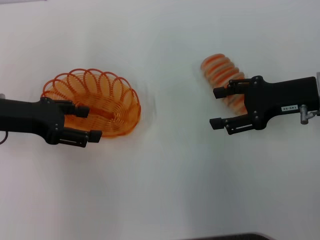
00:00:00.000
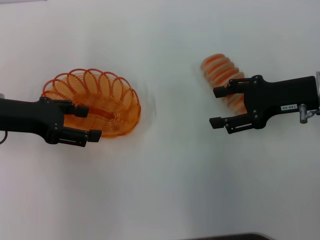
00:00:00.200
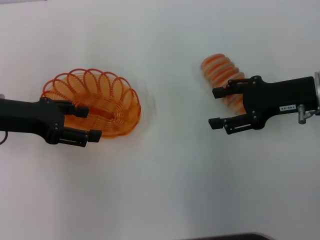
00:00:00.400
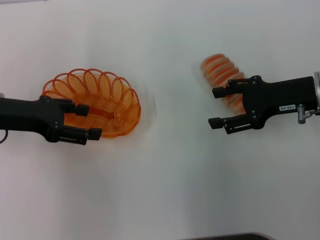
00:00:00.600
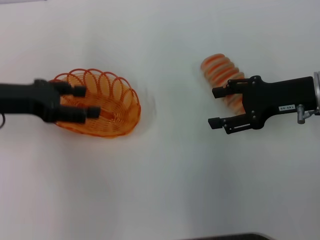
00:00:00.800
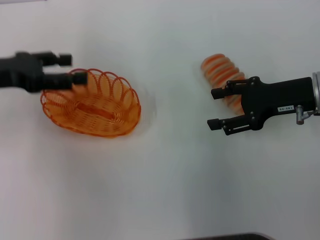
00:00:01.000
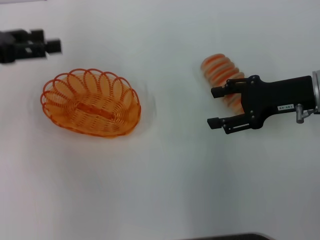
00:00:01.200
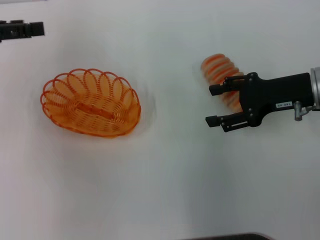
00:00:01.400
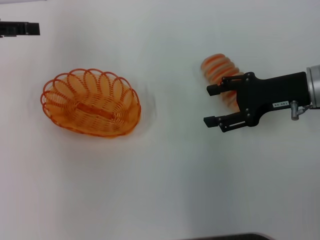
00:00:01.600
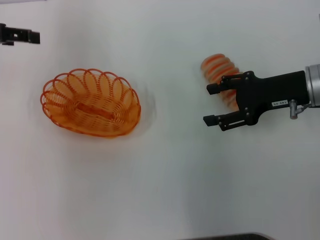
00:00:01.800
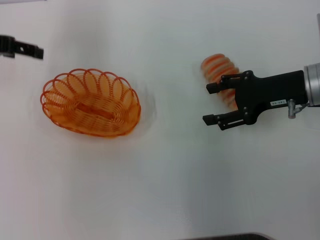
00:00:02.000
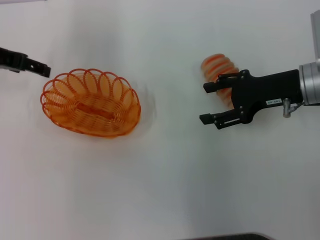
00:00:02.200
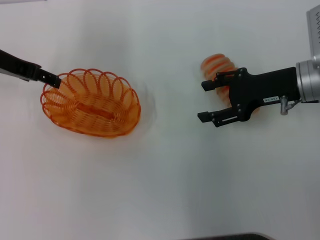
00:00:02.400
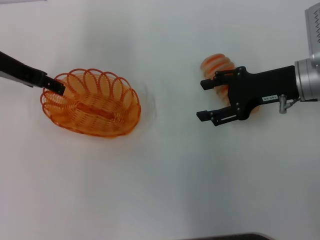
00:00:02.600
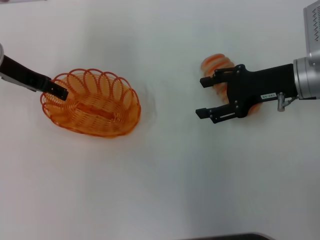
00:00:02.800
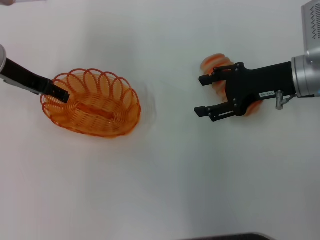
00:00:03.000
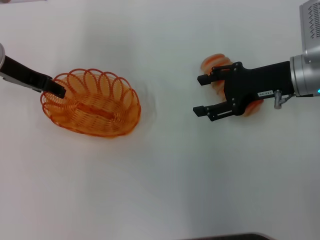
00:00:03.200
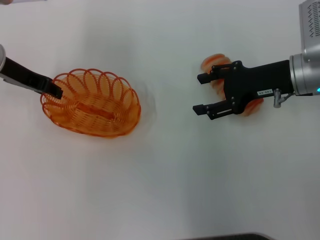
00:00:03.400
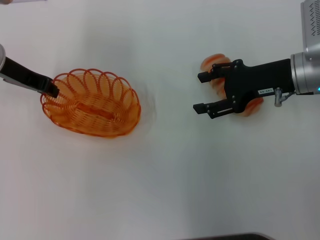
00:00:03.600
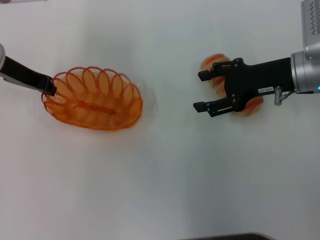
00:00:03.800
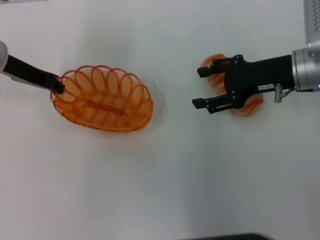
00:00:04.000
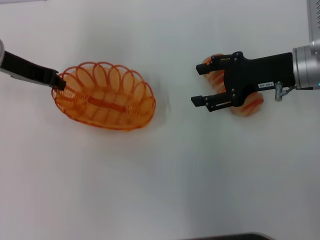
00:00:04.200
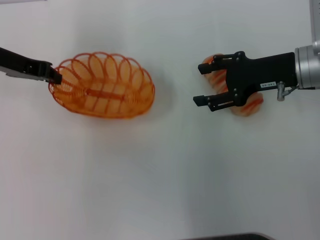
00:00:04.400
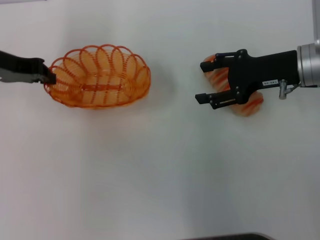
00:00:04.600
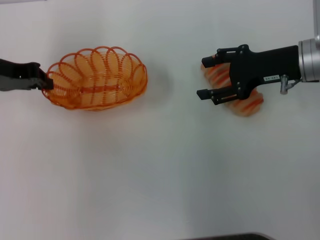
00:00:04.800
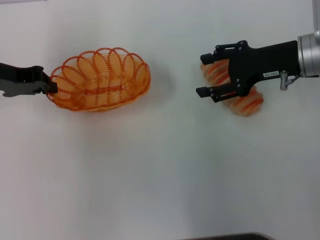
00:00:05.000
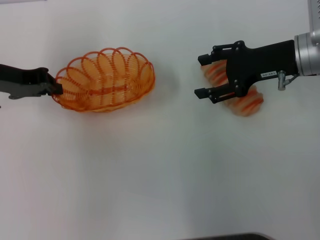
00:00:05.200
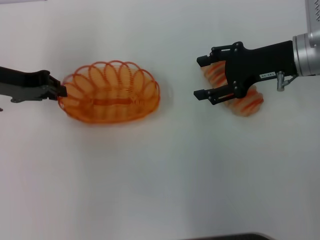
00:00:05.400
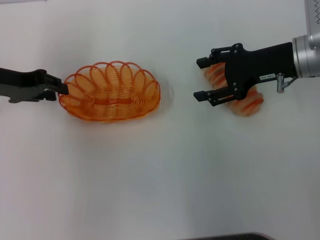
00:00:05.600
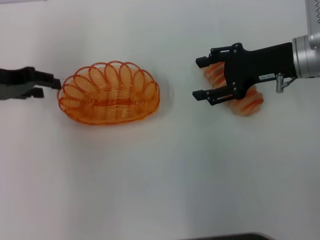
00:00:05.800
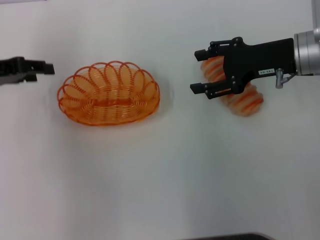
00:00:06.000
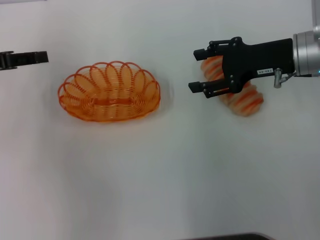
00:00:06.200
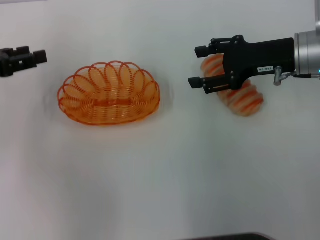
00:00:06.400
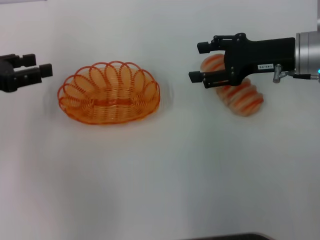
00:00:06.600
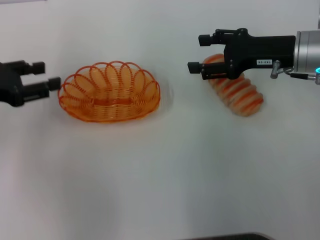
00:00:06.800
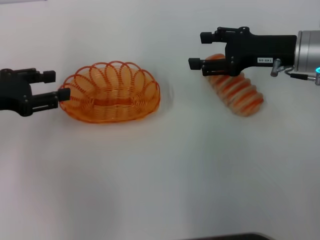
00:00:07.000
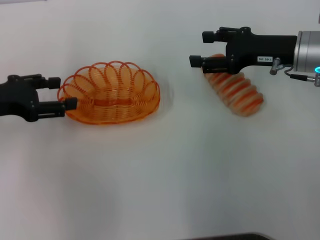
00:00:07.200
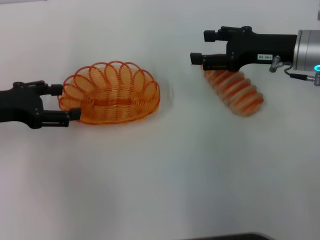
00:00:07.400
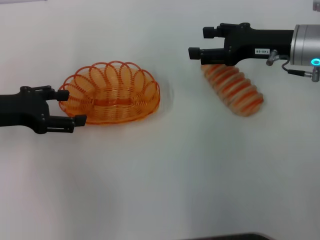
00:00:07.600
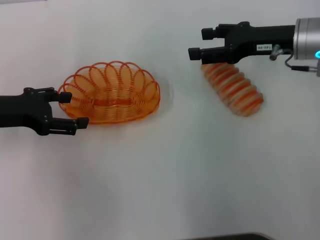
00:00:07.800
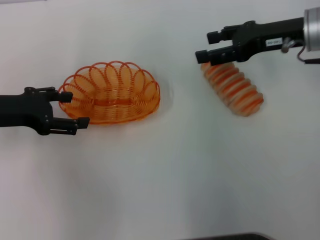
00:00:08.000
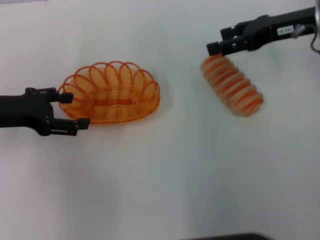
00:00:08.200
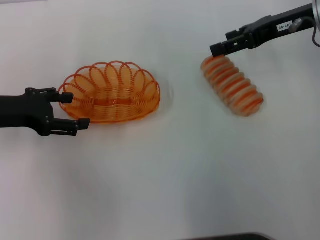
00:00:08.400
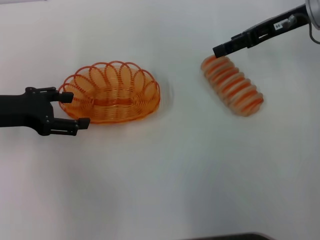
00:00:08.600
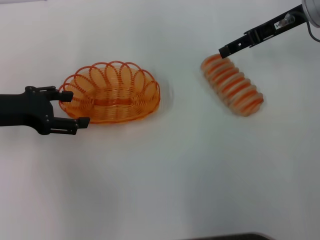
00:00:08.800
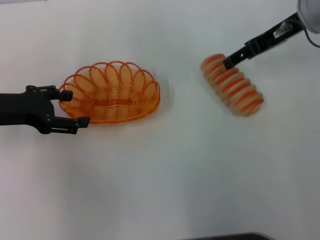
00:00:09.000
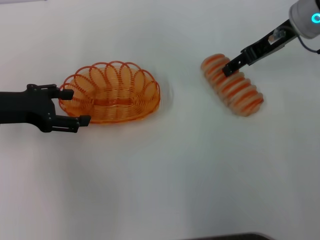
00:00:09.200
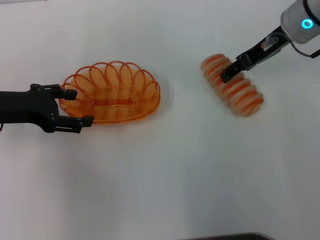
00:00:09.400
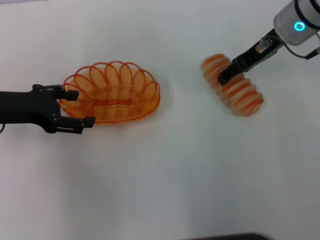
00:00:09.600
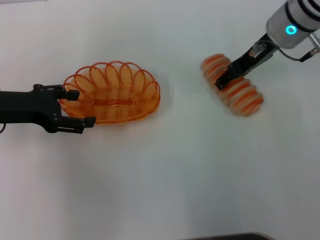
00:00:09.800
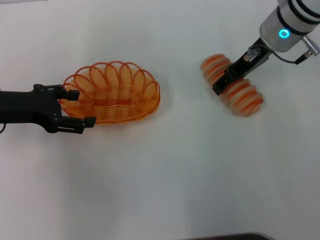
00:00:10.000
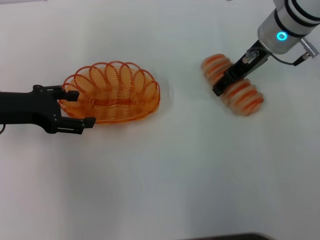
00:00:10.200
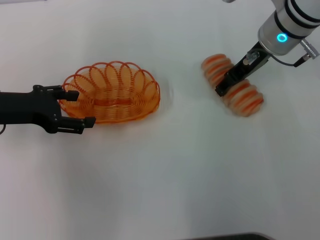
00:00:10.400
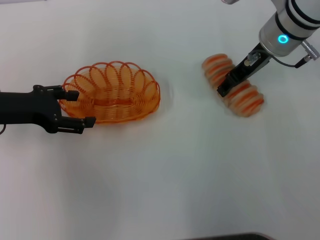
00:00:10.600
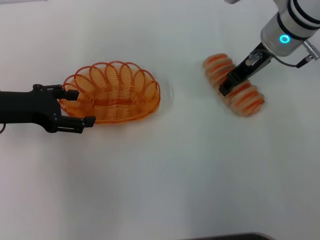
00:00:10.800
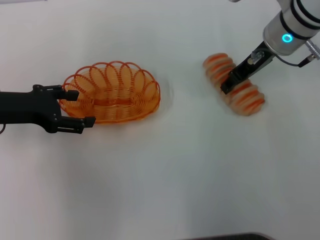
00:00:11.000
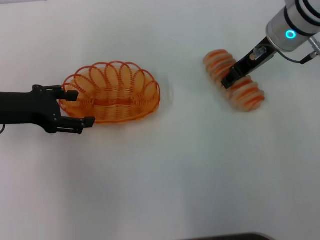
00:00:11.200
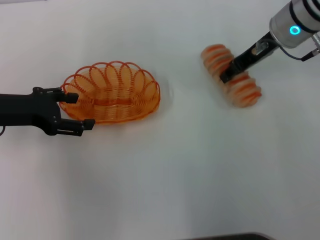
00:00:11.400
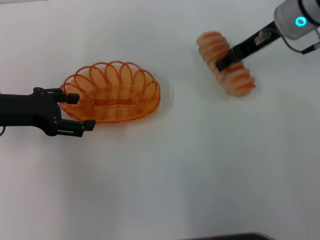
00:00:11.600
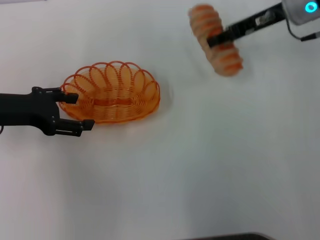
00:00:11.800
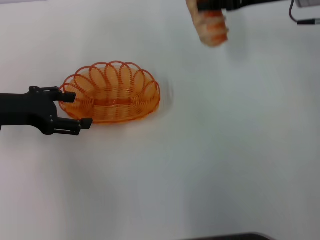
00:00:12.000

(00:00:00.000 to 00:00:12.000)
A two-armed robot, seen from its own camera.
Step, 00:00:00.000 - 00:00:04.400: Pick up the basket with the left gripper.
Step, 00:00:04.600 - 00:00:06.000: Place the basket in the center of view with the left gripper.
Step, 00:00:06.400 - 00:00:11.800: Pick up the long bread with the right gripper.
00:00:00.000 - 00:00:01.600: The left gripper travels upward, forward and to the left by some 10 cm.
00:00:01.600 - 00:00:03.000: The left gripper travels to the right by some 10 cm.
00:00:03.000 - 00:00:04.400: The left gripper closes up.
00:00:04.400 - 00:00:06.000: The left gripper shifts by some 5 cm, and opens.
00:00:06.000 - 00:00:07.600: The left gripper changes place by roughly 5 cm, and opens its fingers.
00:00:07.600 - 00:00:09.000: The right gripper heads upward, covering about 5 cm.
00:00:09.000 - 00:00:10.400: The right gripper travels to the left by approximately 5 cm.
00:00:10.400 - 00:00:12.000: The right gripper shifts about 5 cm to the right, and closes up.

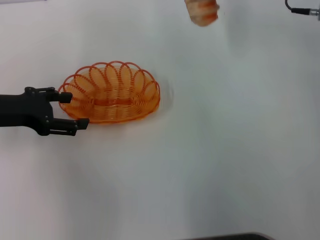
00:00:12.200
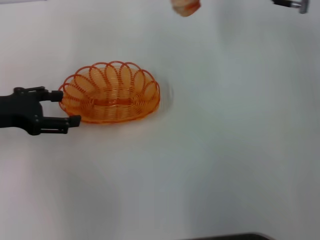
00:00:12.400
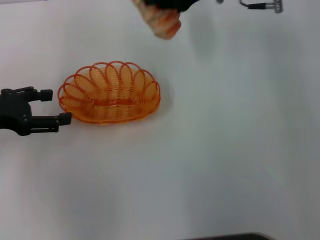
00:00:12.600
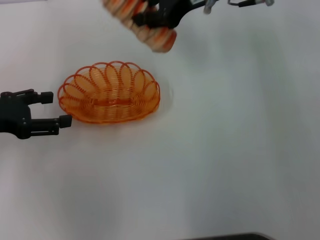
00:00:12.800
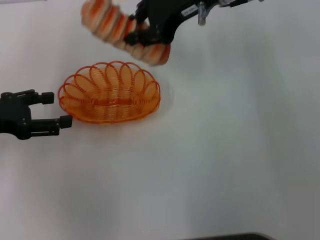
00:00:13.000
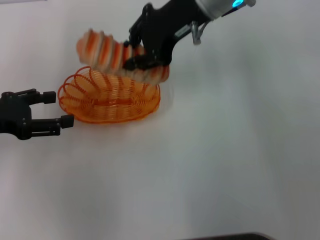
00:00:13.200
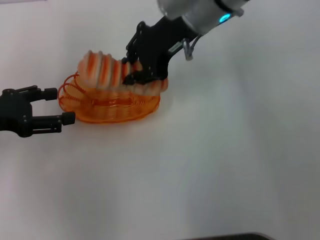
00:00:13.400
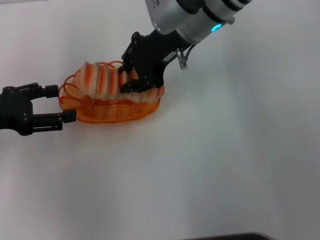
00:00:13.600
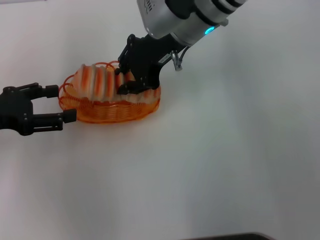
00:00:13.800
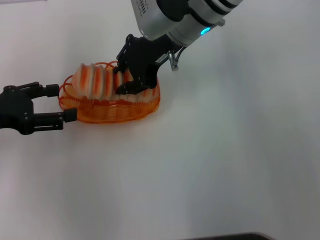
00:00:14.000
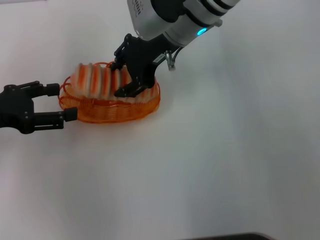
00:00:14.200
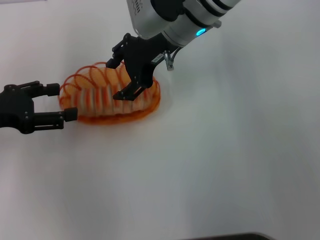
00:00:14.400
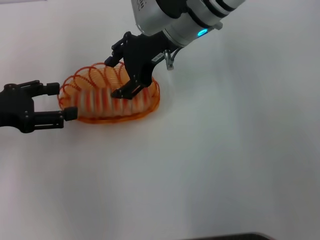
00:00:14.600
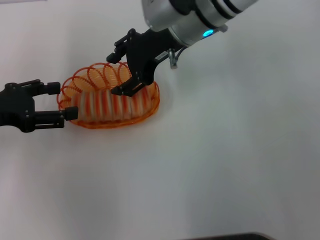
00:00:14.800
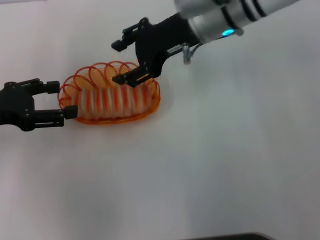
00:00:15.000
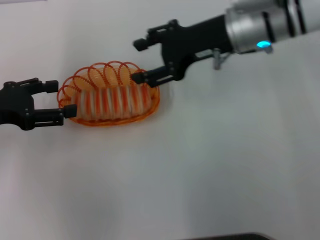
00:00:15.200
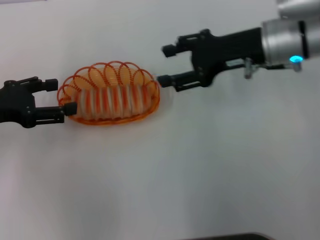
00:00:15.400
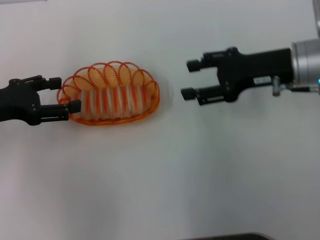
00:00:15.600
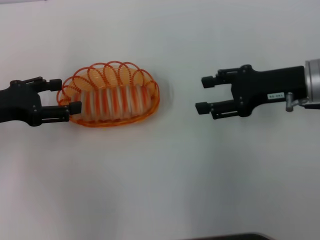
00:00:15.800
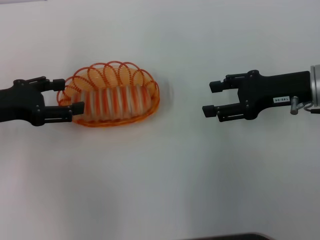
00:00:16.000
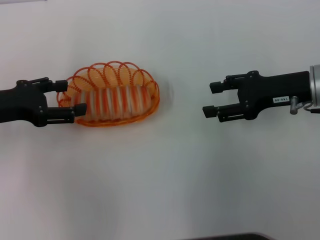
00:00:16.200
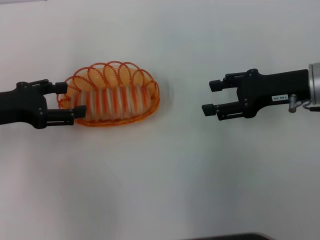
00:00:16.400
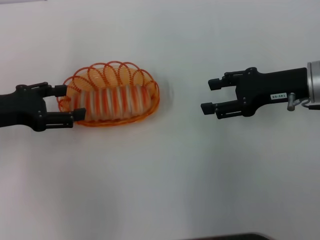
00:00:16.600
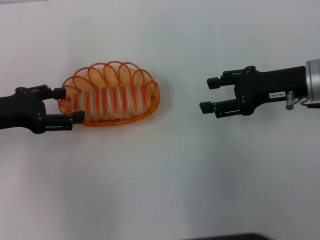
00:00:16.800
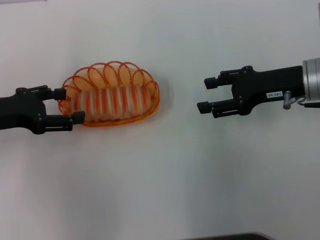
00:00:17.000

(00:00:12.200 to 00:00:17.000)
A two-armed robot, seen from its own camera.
Step, 00:00:12.200 - 00:00:15.400: Place the long bread into the basket with the right gripper.
00:00:12.200 - 00:00:13.800: The right gripper travels to the left by roughly 15 cm.
00:00:13.800 - 00:00:15.400: The right gripper goes approximately 15 cm to the right, and opens its fingers.
00:00:15.400 - 00:00:17.000: The right gripper shifts roughly 5 cm to the right.
